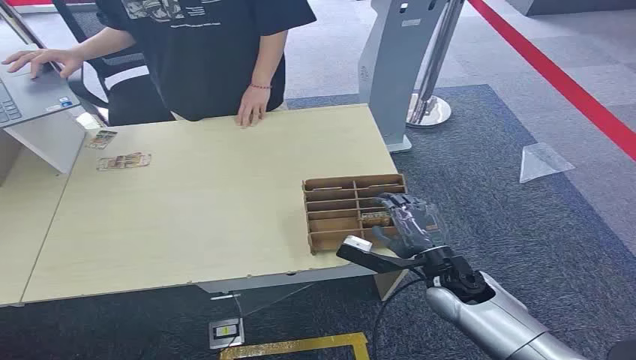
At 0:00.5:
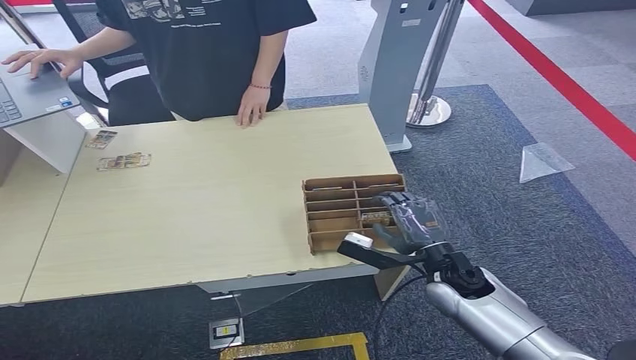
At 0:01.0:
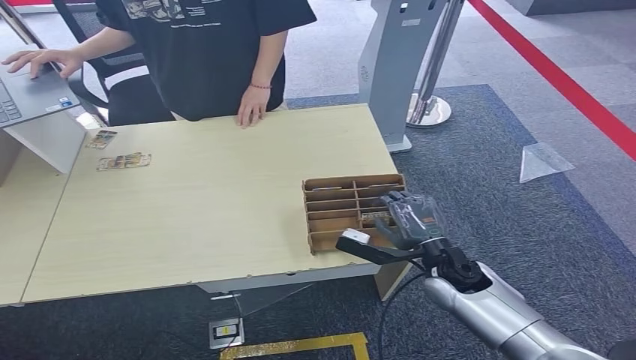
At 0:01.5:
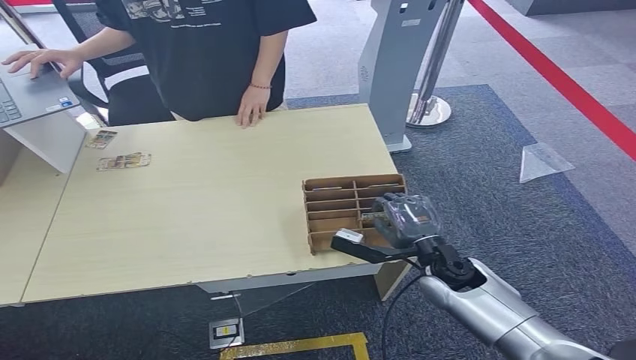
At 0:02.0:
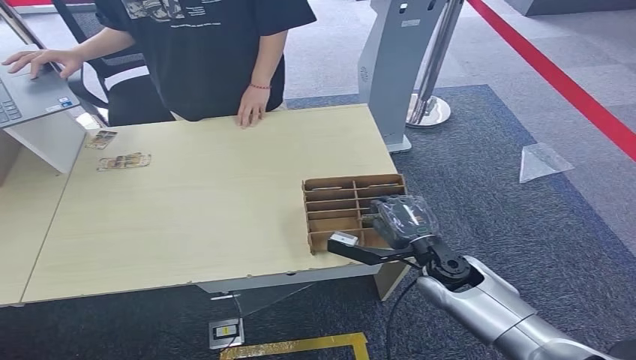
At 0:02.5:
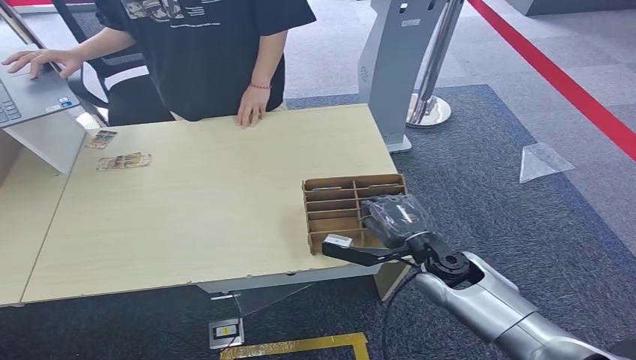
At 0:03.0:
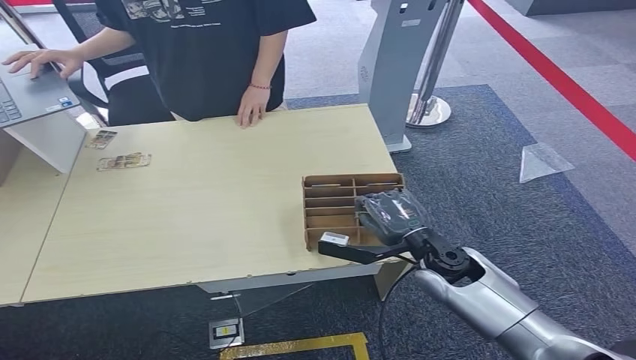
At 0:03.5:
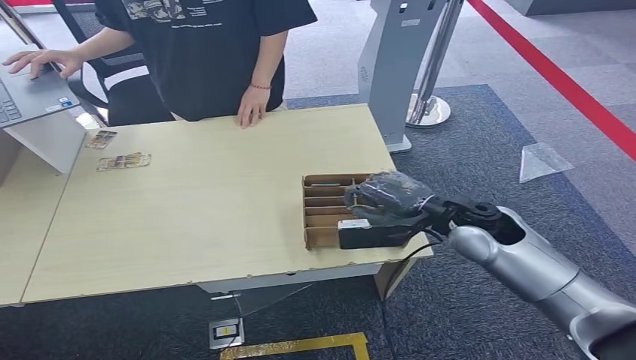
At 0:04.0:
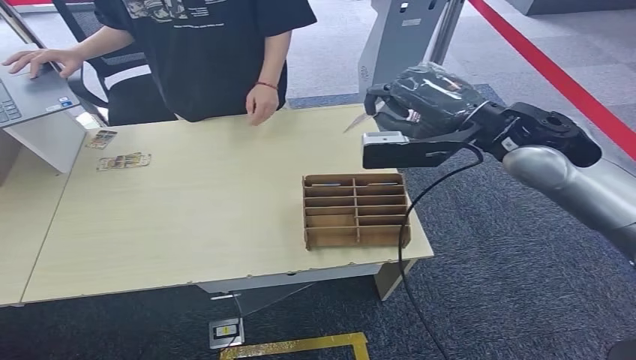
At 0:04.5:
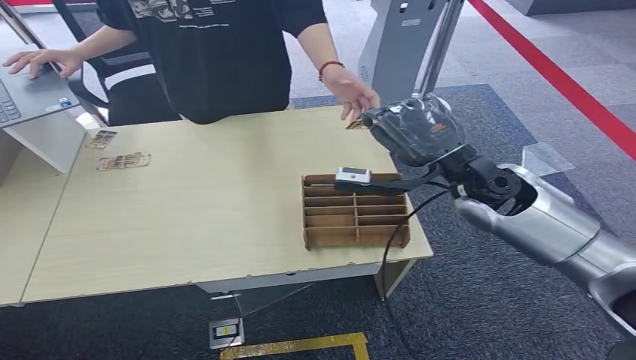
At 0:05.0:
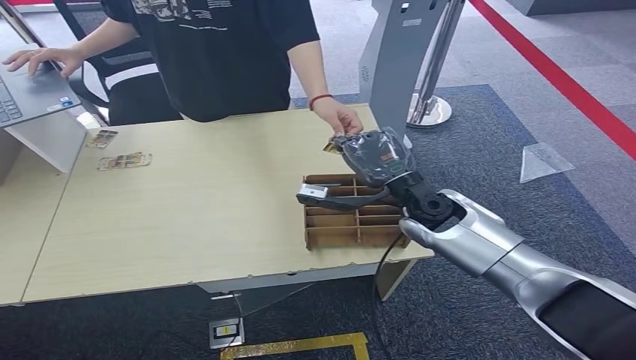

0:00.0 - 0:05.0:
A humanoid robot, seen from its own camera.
Step, 0:00.0 - 0:03.5: Pick up the room card from the card holder.
Step, 0:04.0 - 0:05.0: Hand the room card to the target.
0:02.5 - 0:05.0: The right hand is displaced upward and forward by some 15 cm.

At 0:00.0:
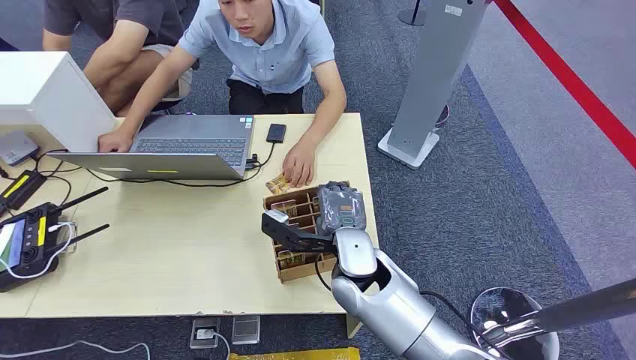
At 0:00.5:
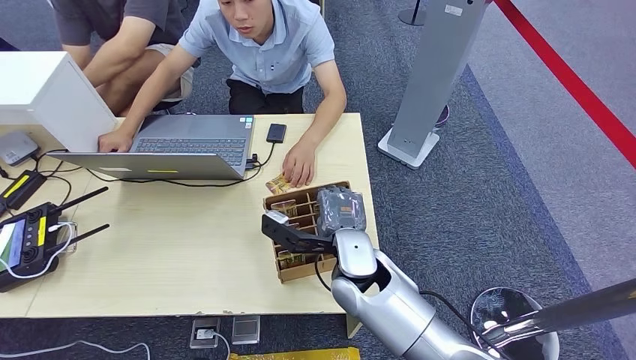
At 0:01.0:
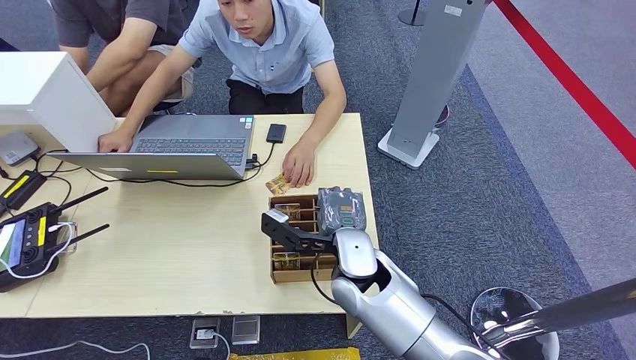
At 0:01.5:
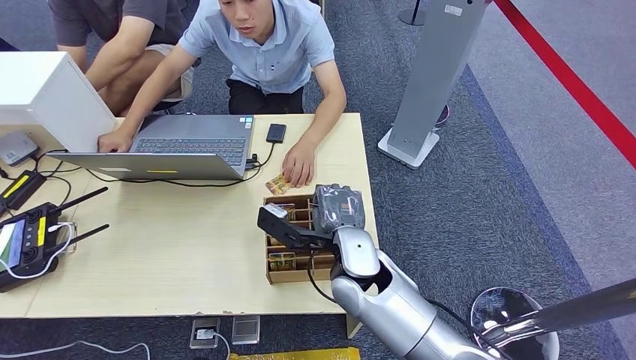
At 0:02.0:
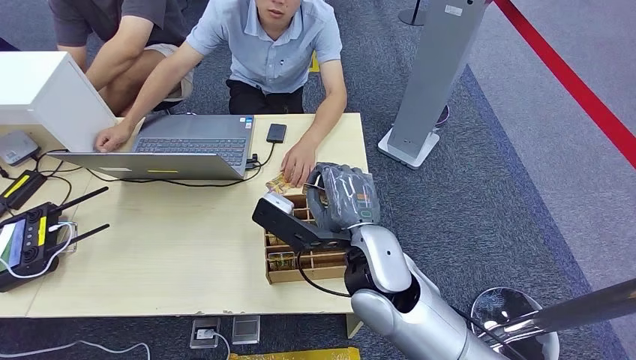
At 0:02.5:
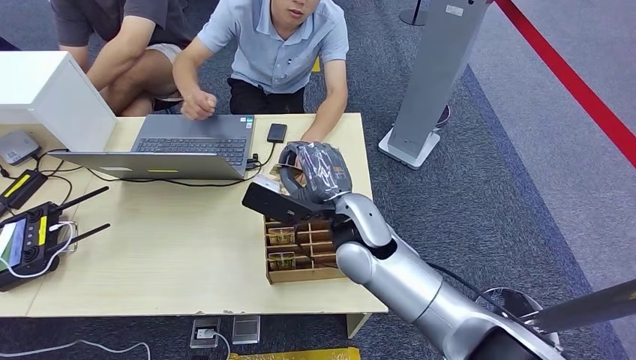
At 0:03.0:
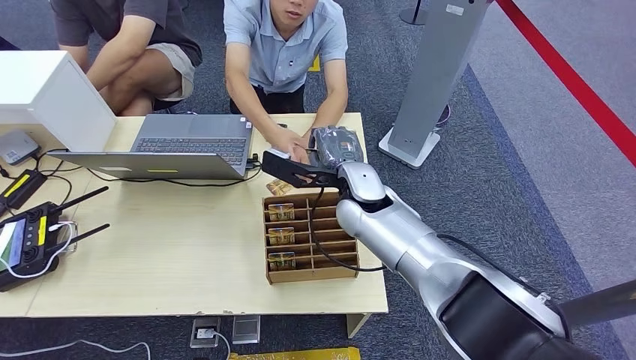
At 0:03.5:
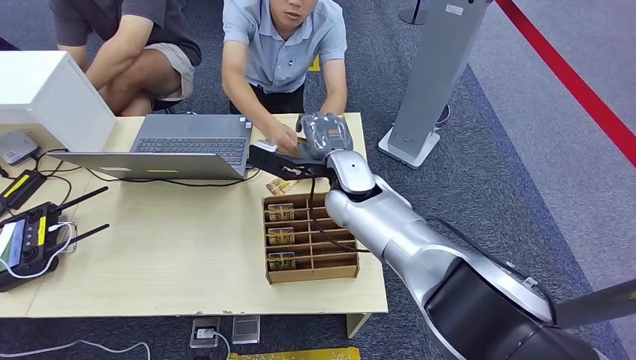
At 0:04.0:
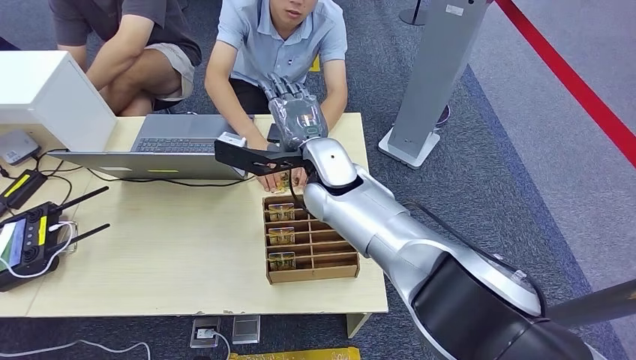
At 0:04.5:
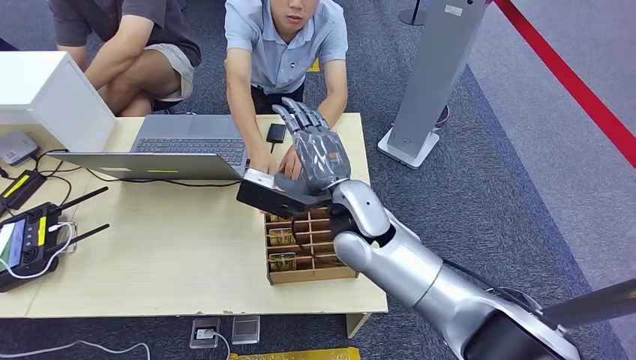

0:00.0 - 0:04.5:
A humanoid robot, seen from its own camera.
Step, 0:00.0 - 0:01.5: Pick up the room card from the card holder.
Step, 0:02.5 - 0:04.5: Hand the room card to the target.
0:02.0 - 0:04.5: The right hand goes approximately 10 cm forward.

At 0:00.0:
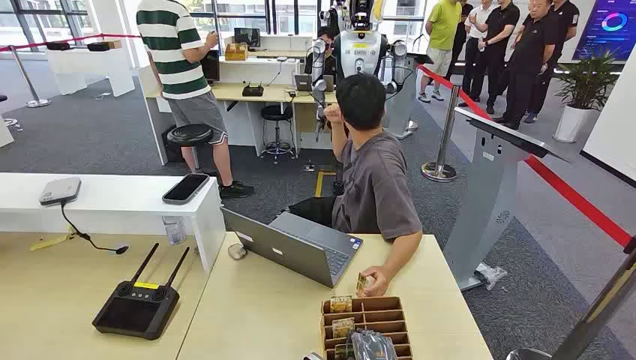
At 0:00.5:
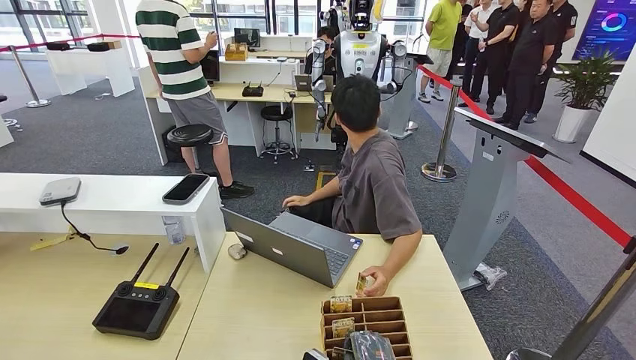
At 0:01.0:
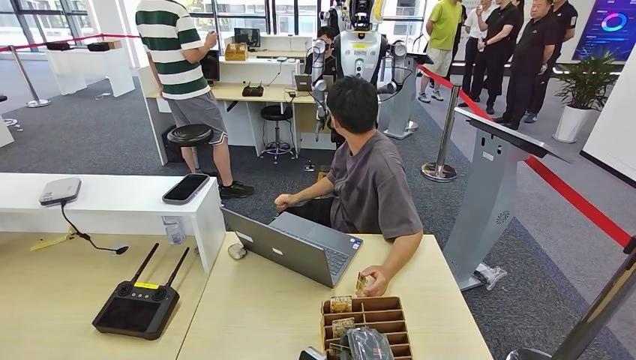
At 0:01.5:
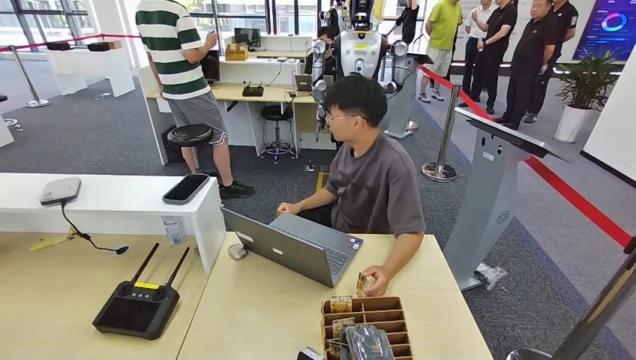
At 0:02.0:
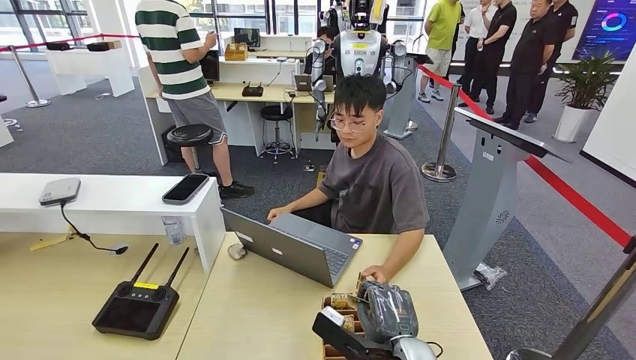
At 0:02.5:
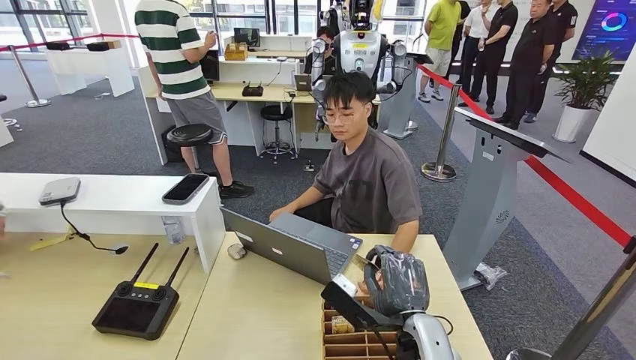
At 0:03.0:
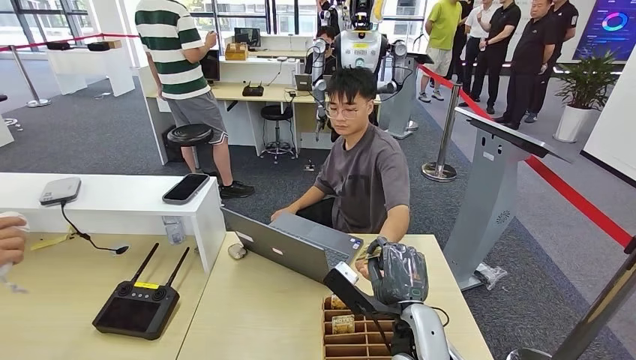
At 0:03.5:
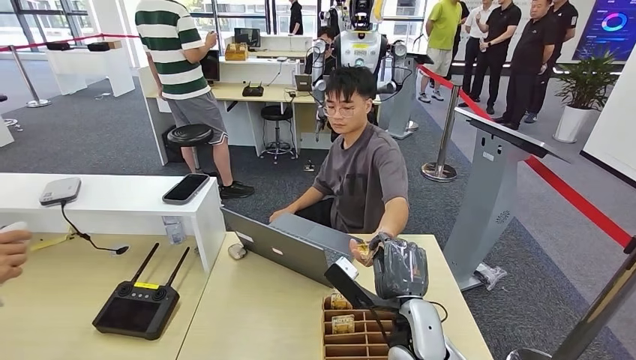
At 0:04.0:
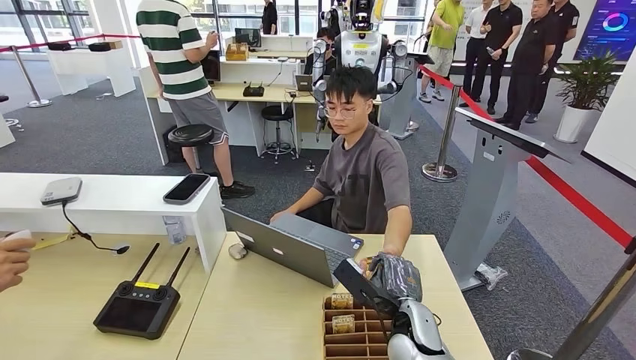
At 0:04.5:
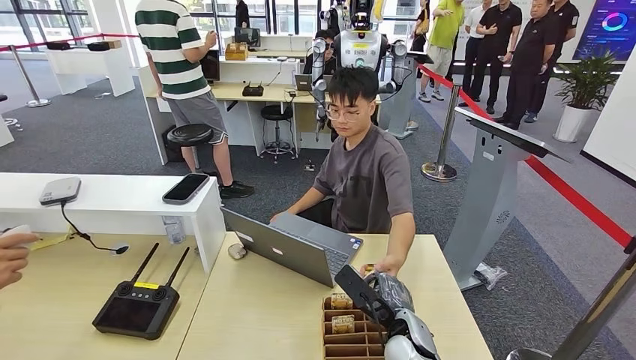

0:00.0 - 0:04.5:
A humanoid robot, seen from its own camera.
Step, 0:00.0 - 0:01.5: Pick up the room card from the card holder.
Step, 0:03.5 - 0:04.5: Hand the room card to the target.
0:02.0 - 0:04.5: The right hand travels forward by approximately 5 cm.
